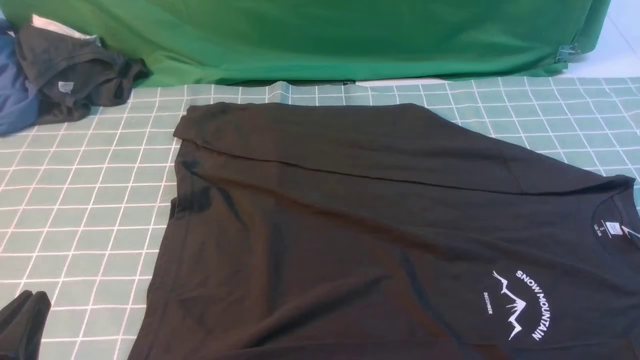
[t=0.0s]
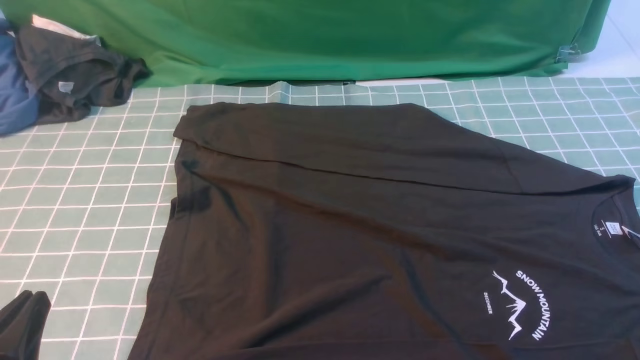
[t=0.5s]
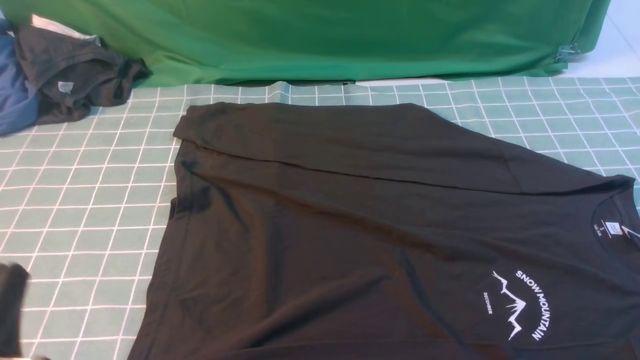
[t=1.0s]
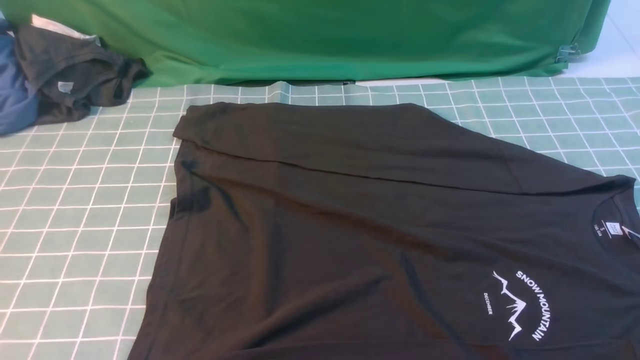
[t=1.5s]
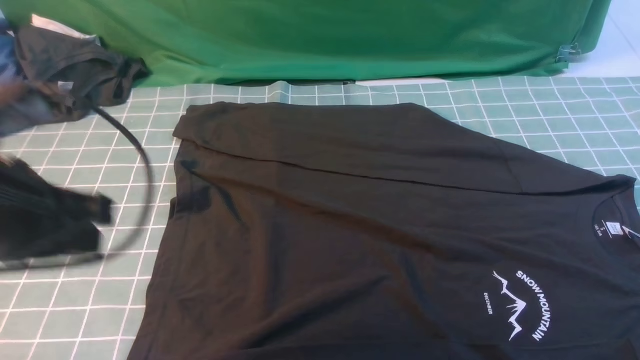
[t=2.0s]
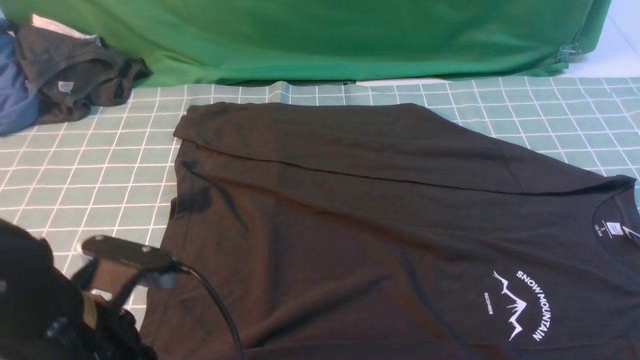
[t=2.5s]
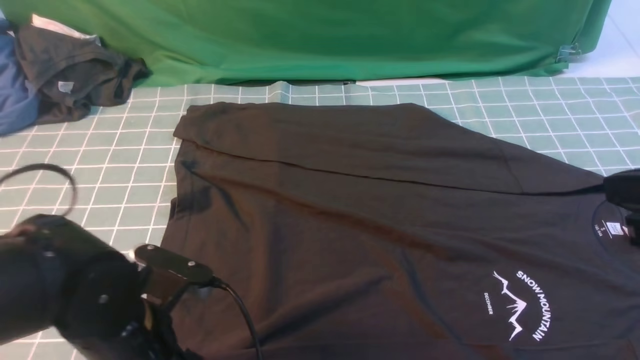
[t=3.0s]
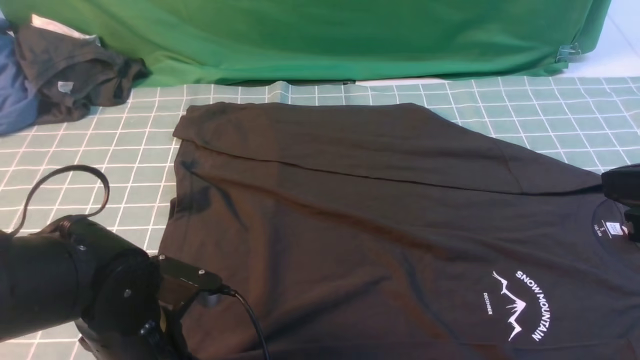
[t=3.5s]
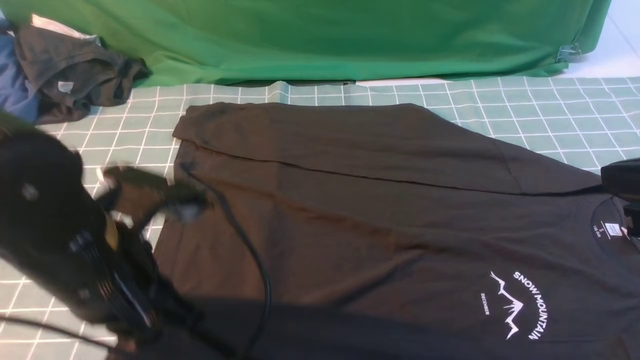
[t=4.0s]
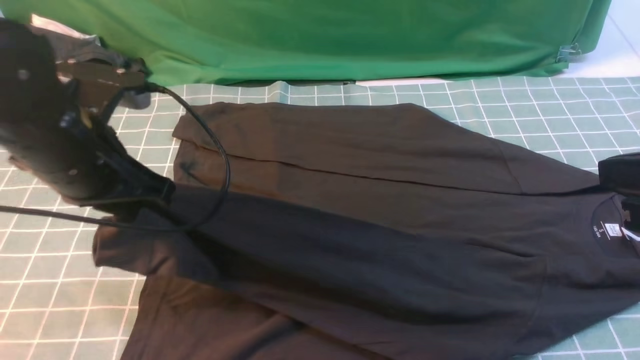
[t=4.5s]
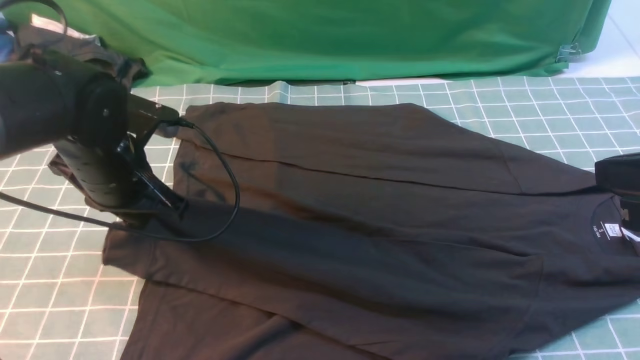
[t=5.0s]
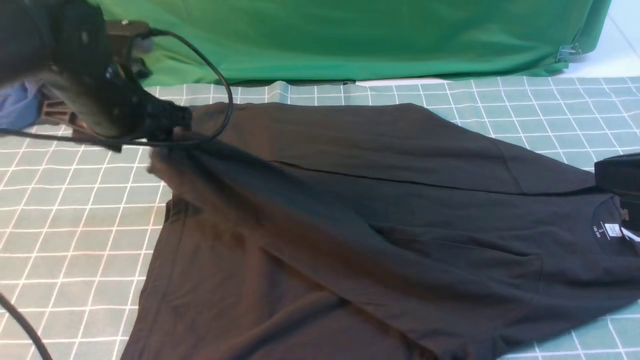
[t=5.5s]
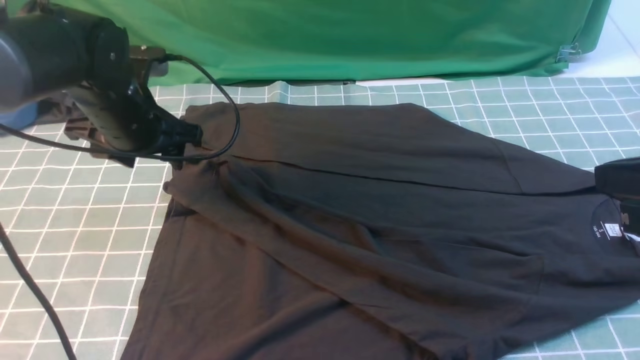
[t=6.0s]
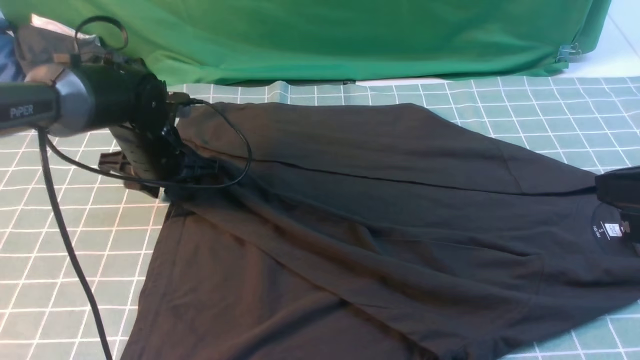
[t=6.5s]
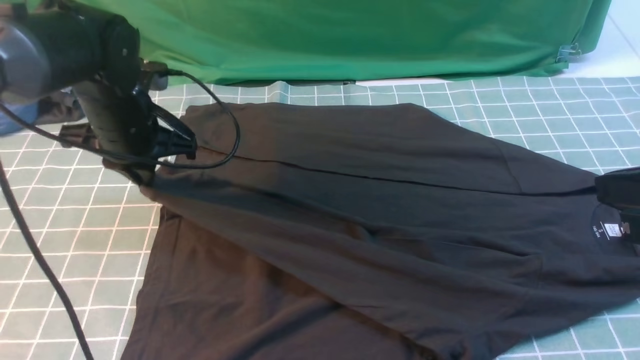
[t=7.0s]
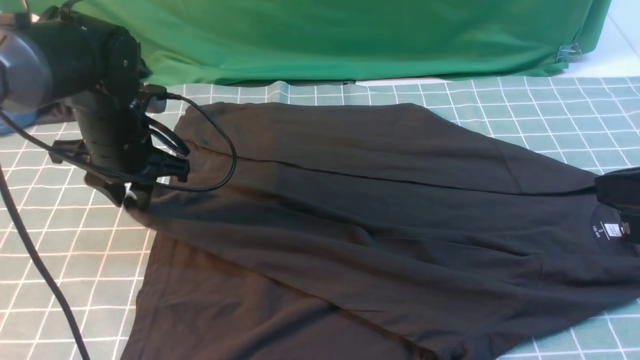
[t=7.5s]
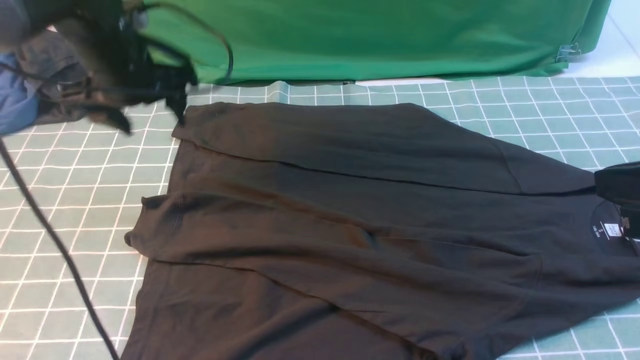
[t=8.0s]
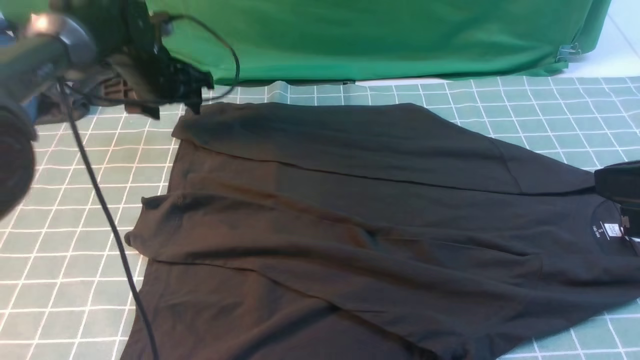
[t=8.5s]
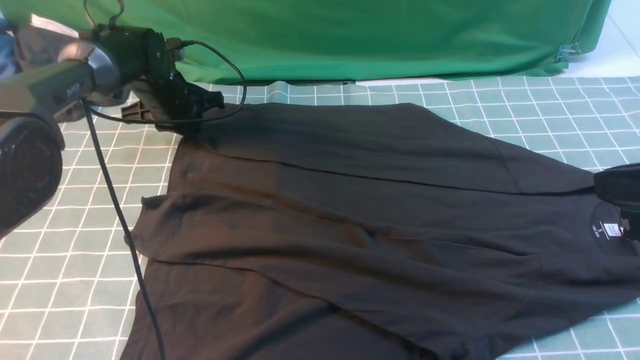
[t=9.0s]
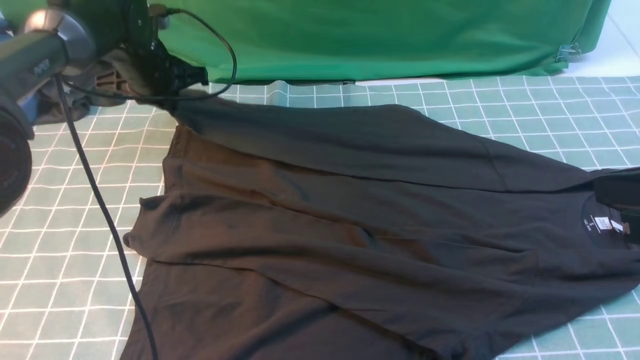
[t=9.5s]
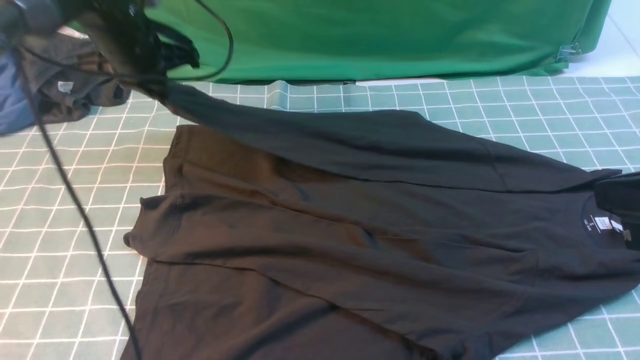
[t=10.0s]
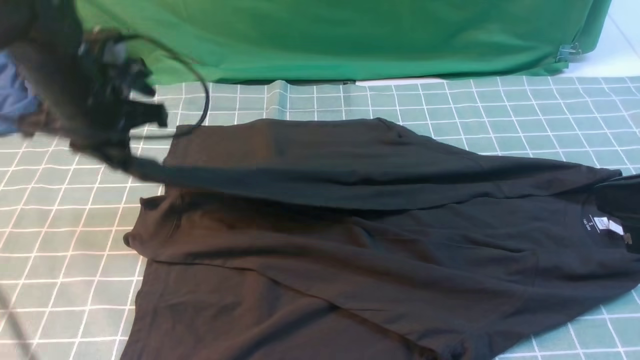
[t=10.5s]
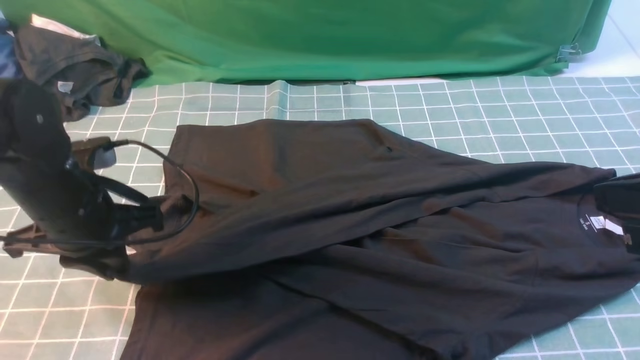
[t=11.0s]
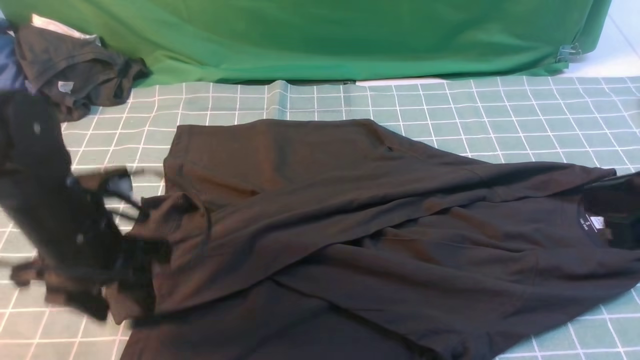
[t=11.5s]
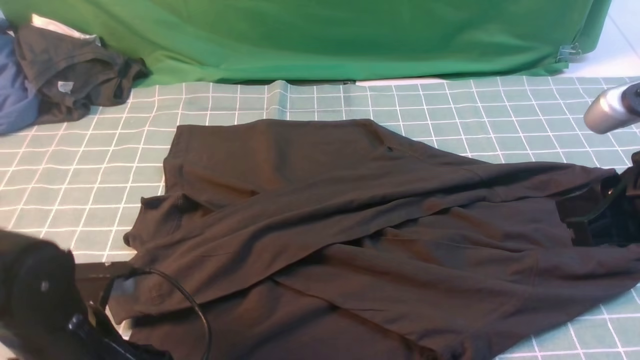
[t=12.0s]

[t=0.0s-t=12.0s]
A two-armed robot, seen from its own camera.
Step, t=0.0s to t=3.5s: use the left arm to clamp the cuff closest to it.
Step, t=4.0s to t=7.5s: use the left arm to drag and place the cuff at the centered position on the left edge of the fabric.
Step, t=8.0s to t=9.0s: use the left arm to clamp the cuff farthest from it.
Step, t=9.5s to t=11.0s: use the left arm to drag and drop the cuff onto the cuff closest to the left arm.
t=0.0s to t=2.0s: The left gripper is displaced forward and upward by about 15 cm.
t=2.0s to t=4.0s: The right gripper moves forward, to the left and upward, approximately 15 cm. The left gripper goes approximately 5 cm to the right, goes downward and returns, approximately 15 cm each way, and opens and closes again.
t=4.0s to t=6.0s: The left gripper shifts approximately 20 cm forward, and opens.
t=6.0s to t=8.0s: The left gripper changes place by about 5 cm, and closes, then opens again.
t=8.0s to t=10.0s: The left gripper reaches some 10 cm downward, then returns, and closes.
t=10.0s to t=12.0s: The left gripper travels backward by about 30 cm, and opens its fingers.

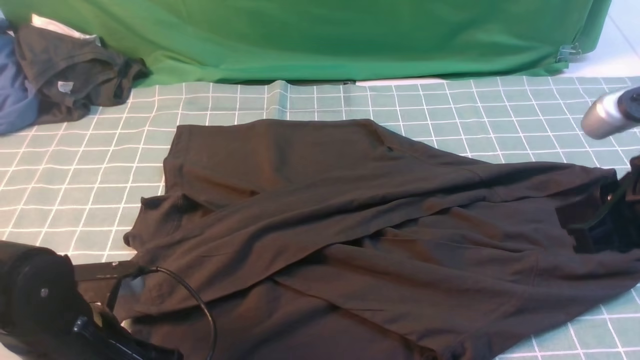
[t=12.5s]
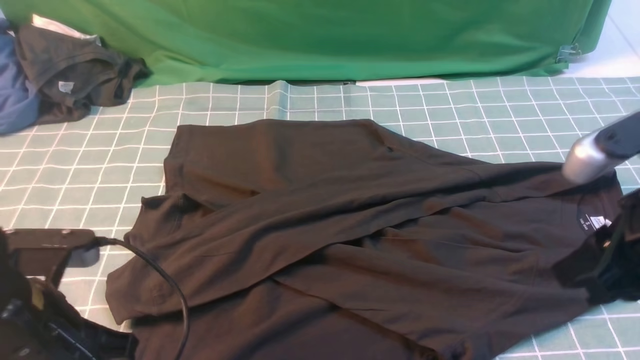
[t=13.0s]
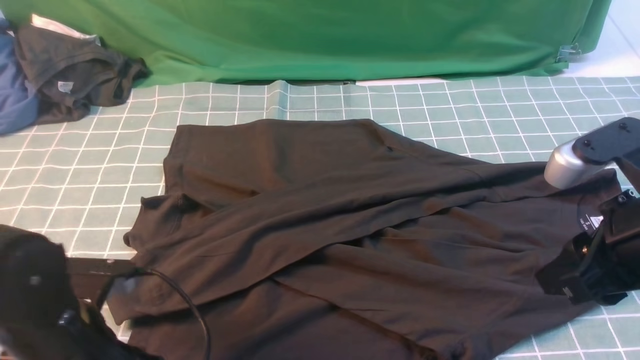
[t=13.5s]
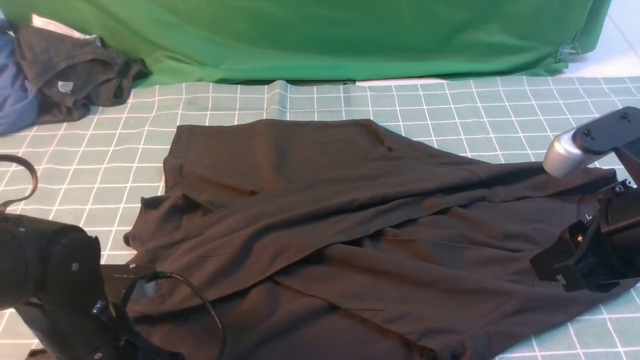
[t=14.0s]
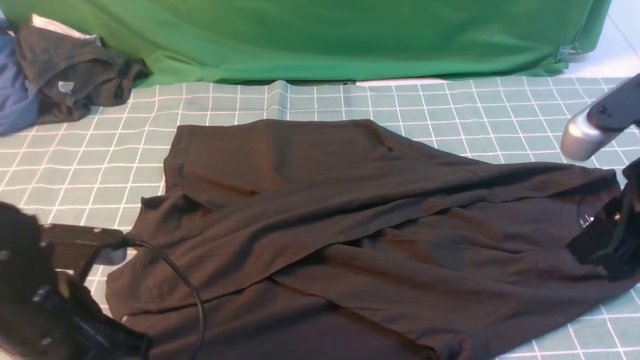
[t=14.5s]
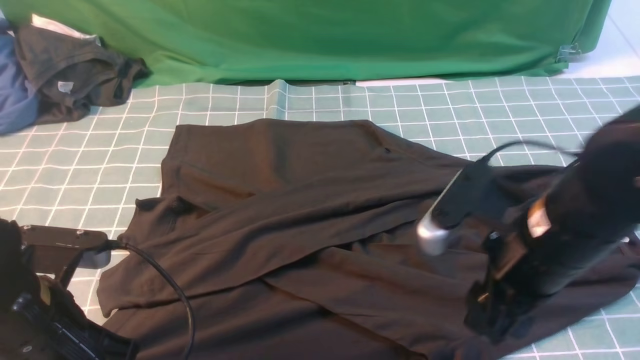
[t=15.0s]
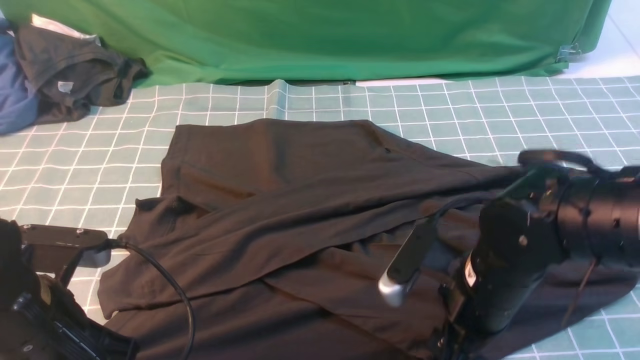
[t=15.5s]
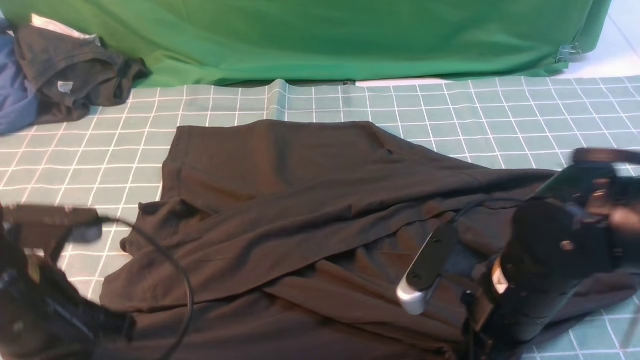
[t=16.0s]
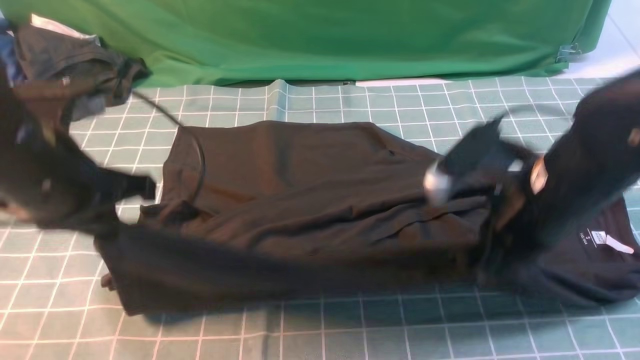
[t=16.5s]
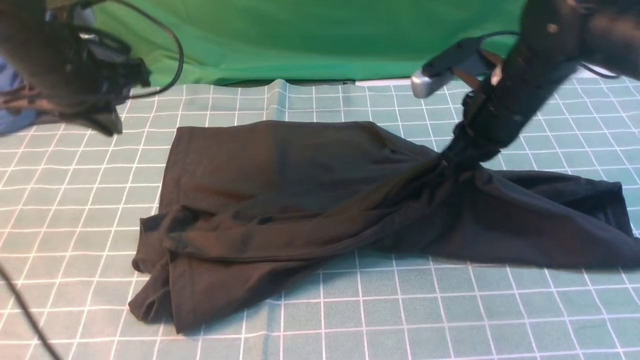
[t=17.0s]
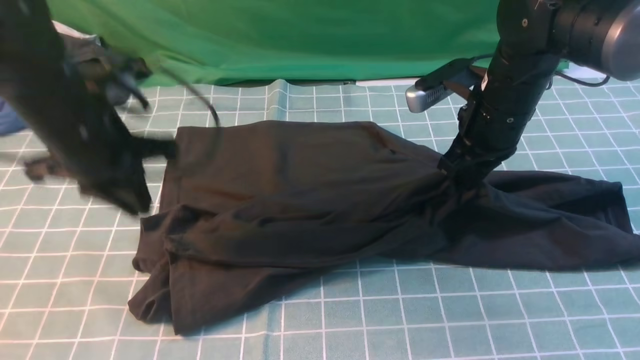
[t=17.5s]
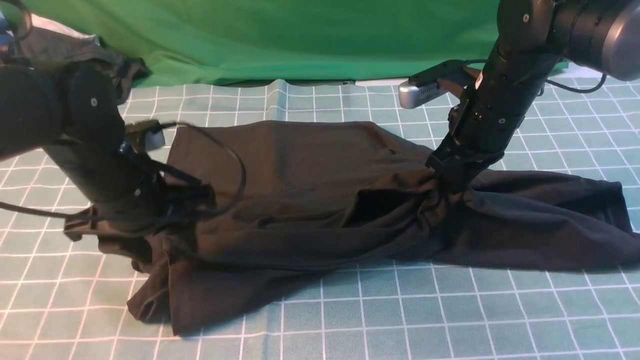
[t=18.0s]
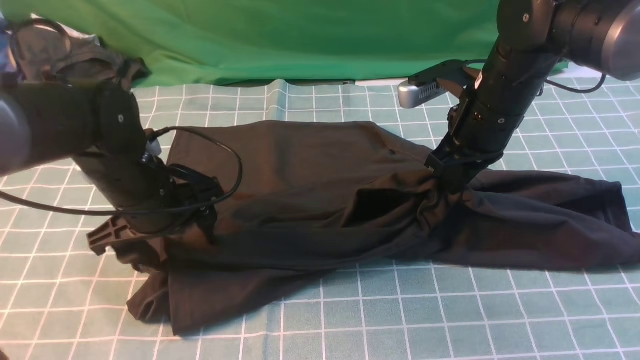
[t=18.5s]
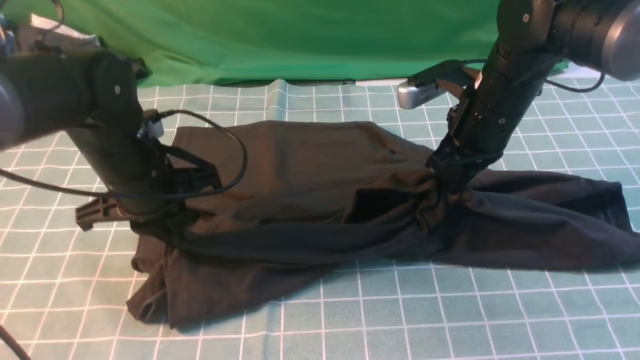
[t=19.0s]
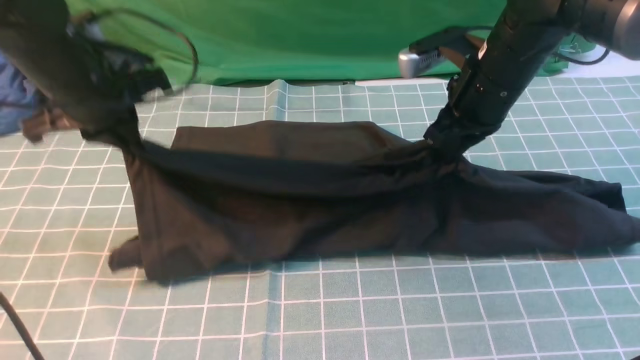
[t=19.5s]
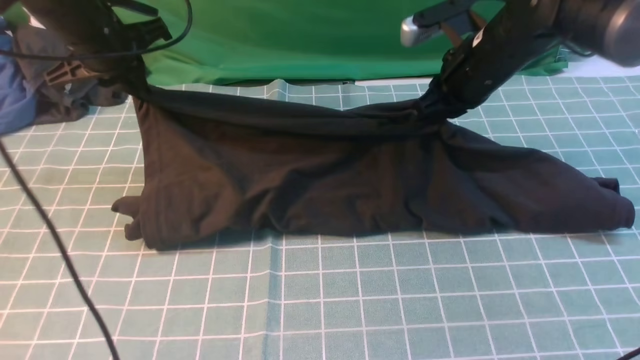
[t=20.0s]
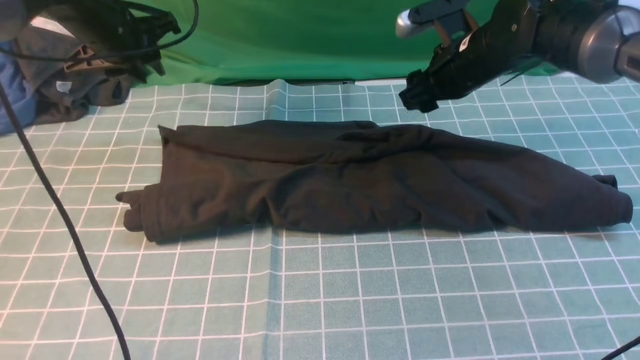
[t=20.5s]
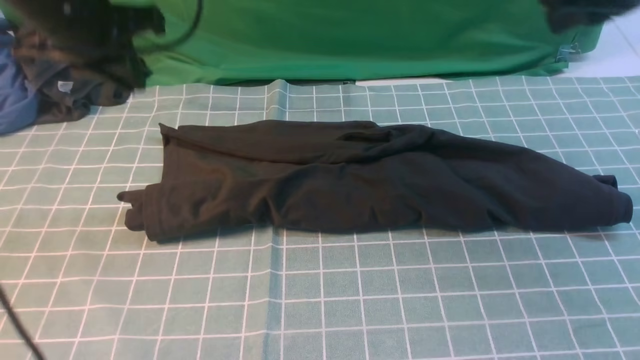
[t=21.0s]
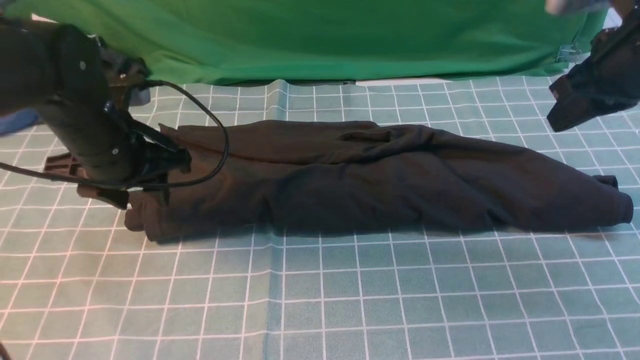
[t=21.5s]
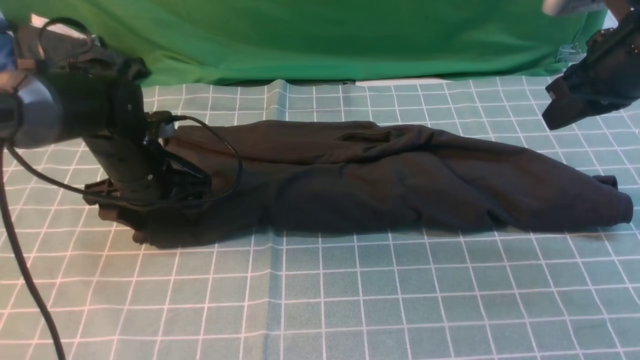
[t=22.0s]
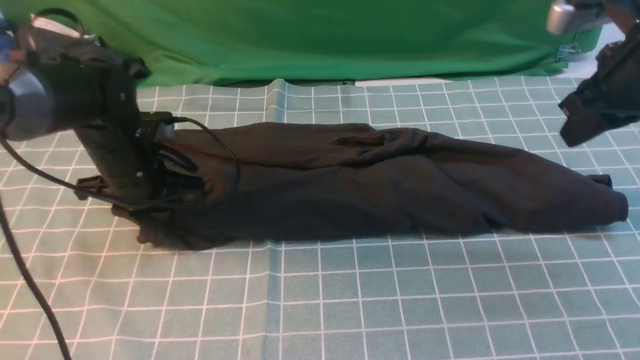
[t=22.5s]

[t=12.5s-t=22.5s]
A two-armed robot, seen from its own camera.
Step, t=12.5s to t=18.5s: use both arms simultaneously to clamp the lower edge of the clothing fabric.
t=12.5s to t=14.5s: The left gripper swings up and down, roughly 5 cm each way, with 2 reversals, and opens, then closes once more.
t=14.5s to t=16.5s: The left gripper moves upward and forward, approximately 10 cm, while the right gripper goes roughly 10 cm forward, to the left and downward, and opens and closes again.
t=16.5s to t=18.5s: The right gripper travels forward by roughly 15 cm, while the left gripper goes approximately 10 cm downward and forward, and opens its fingers.
t=18.5s to t=20.5s: The left gripper is displaced forward, upward and to the left by some 20 cm, and closes up; the right gripper goes roughly 5 cm forward, and opens up.
t=20.5s to t=22.5s: The right gripper goes approximately 15 cm to the right, backward and upward, and closes up. The left gripper travels backward and downward by roughly 15 cm, and opens, then closes again.
